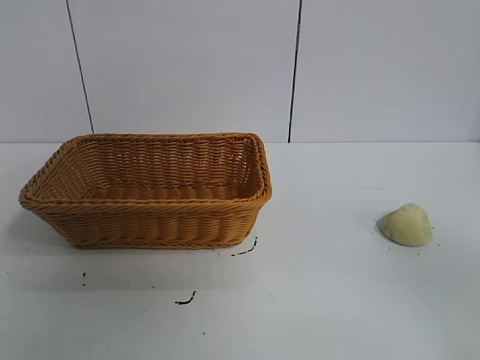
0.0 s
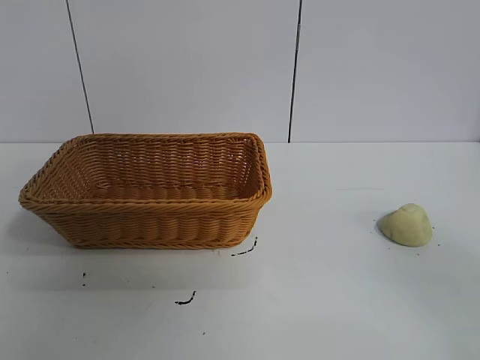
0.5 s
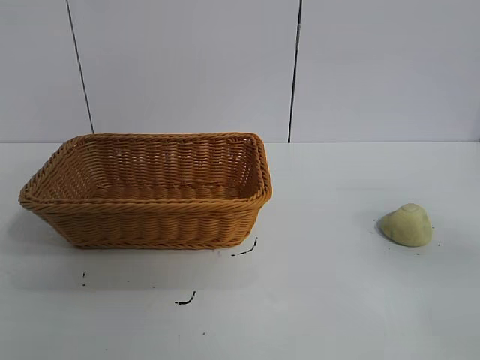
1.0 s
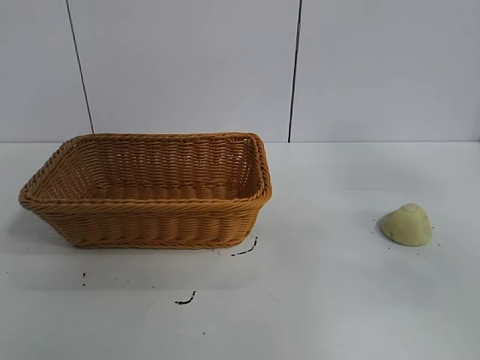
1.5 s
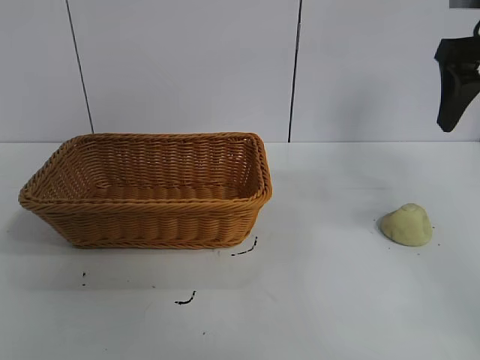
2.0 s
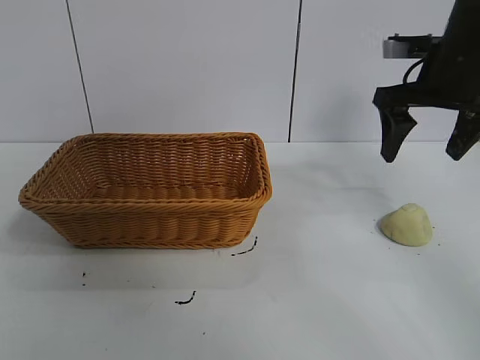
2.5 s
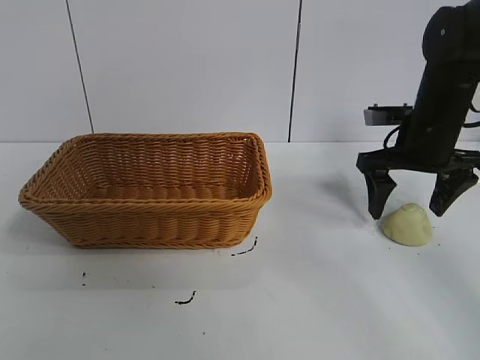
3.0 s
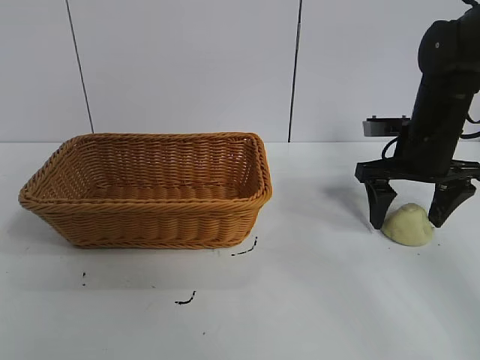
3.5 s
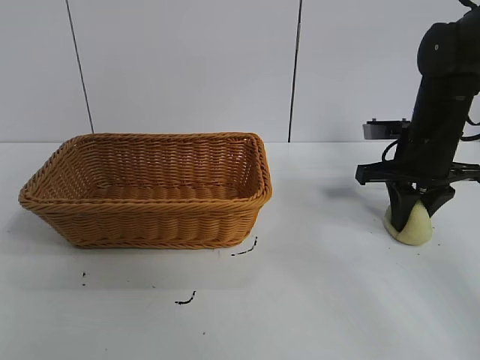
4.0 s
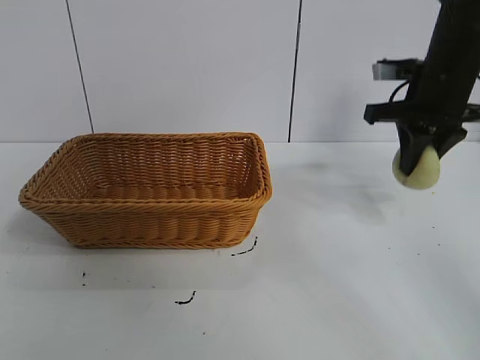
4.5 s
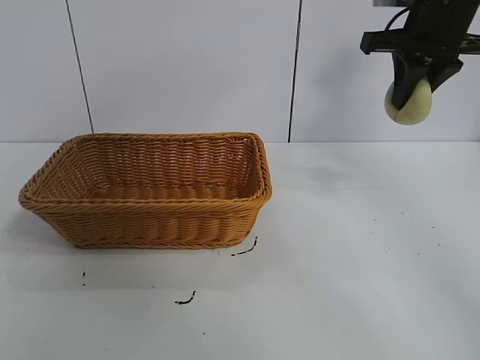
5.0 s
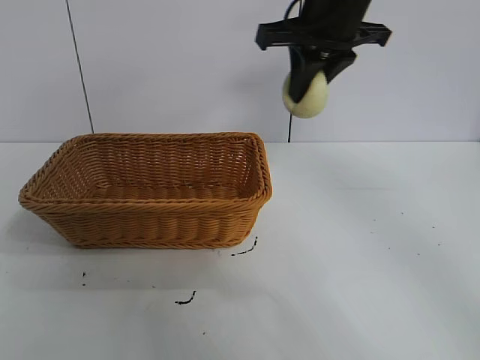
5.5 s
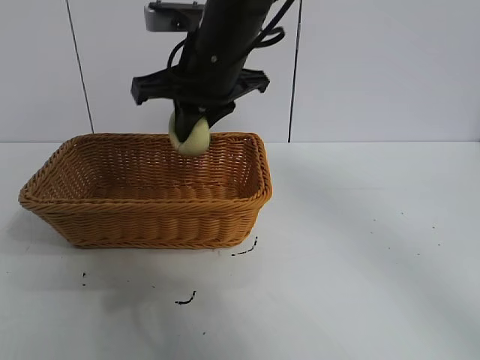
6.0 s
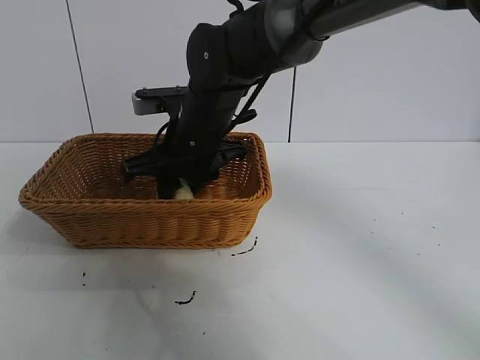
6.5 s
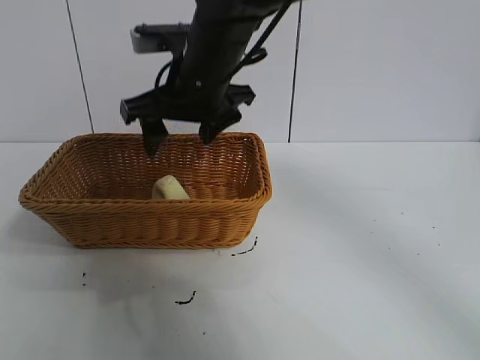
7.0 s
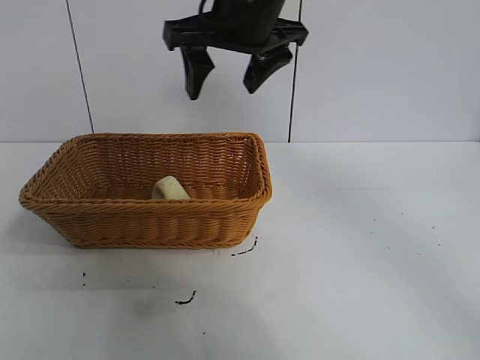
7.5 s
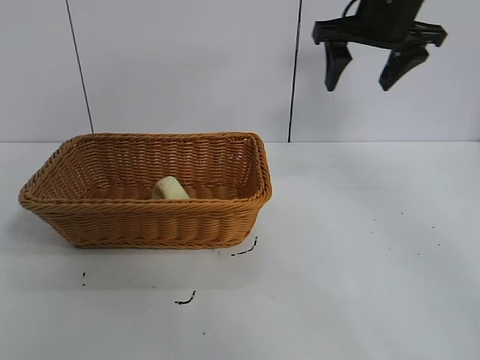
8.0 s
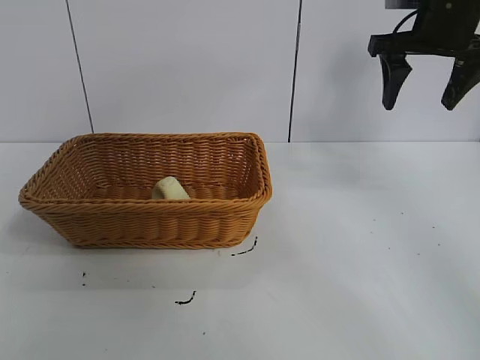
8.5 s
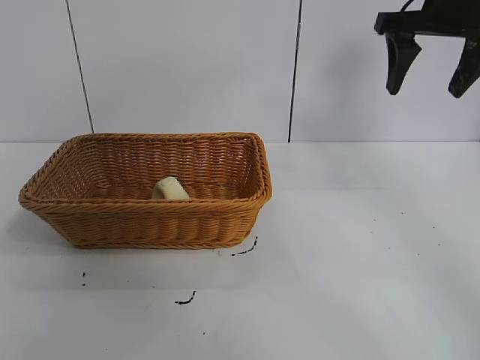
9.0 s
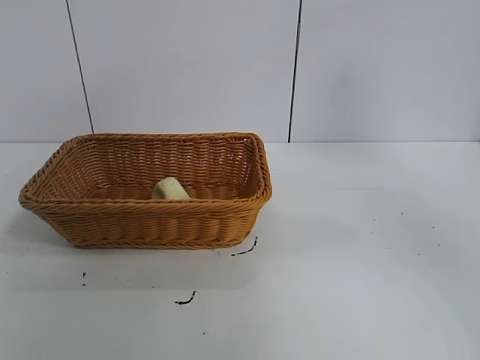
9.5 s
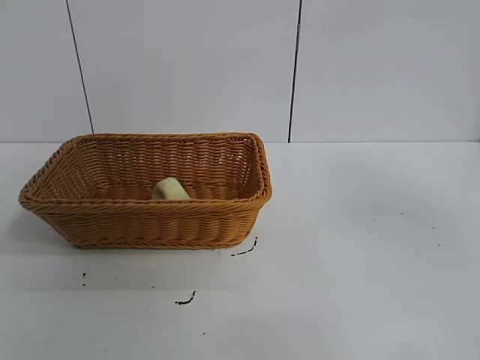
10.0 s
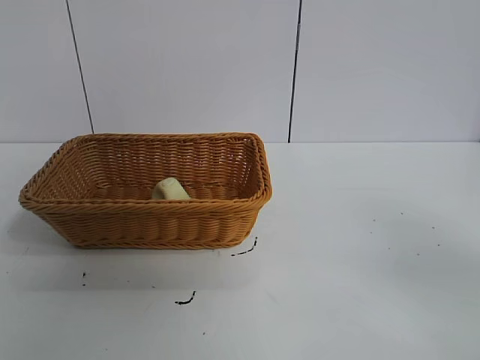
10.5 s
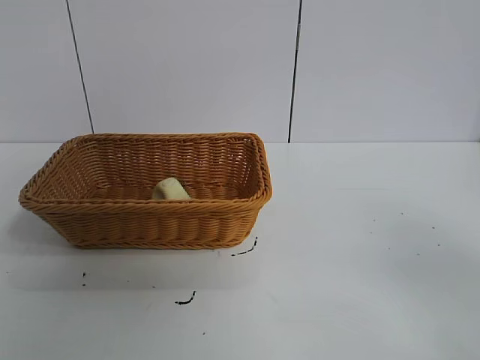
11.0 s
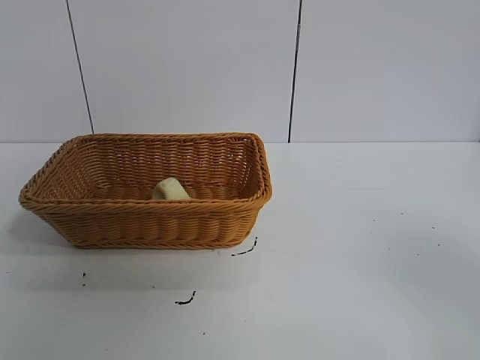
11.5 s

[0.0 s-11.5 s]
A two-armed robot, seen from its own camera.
Task of the whole recording: pick up the egg yolk pastry and put it into the basket.
Step, 1.0 to 4.0 s: Grasp egg yolk pastry with right gripper.
Step, 4.5 to 6.5 s: Place the egg yolk pastry in the basket with right gripper.

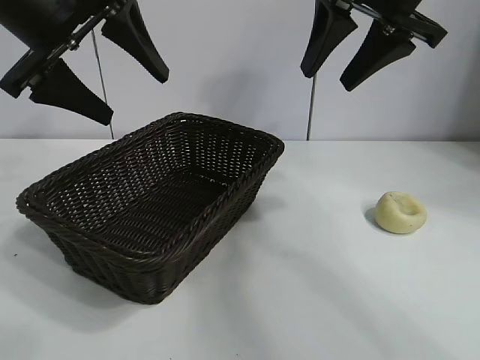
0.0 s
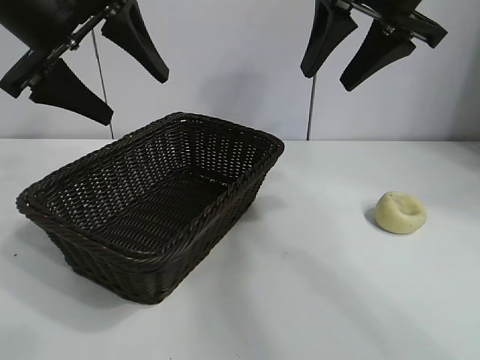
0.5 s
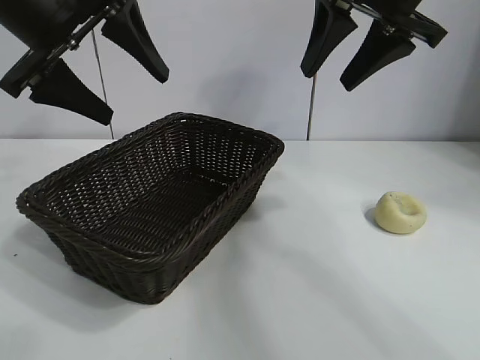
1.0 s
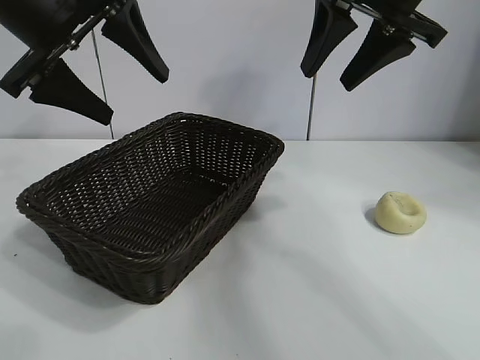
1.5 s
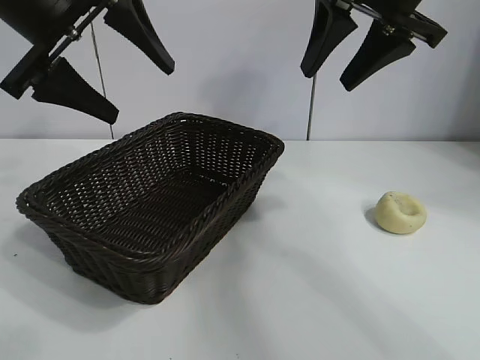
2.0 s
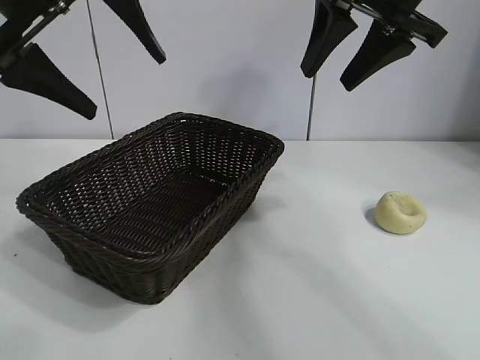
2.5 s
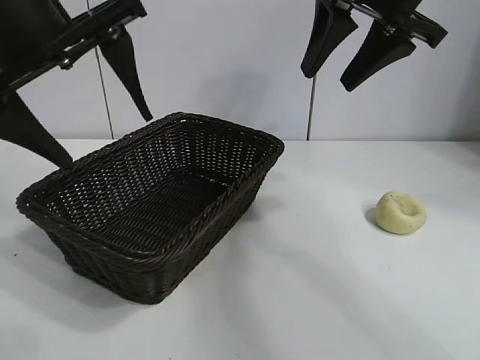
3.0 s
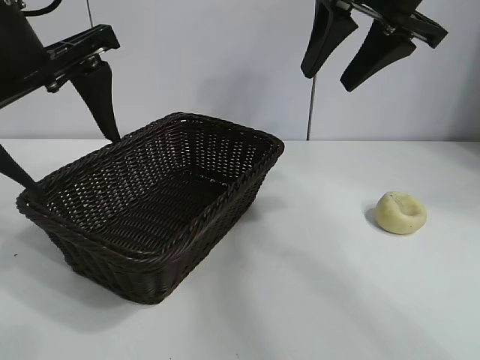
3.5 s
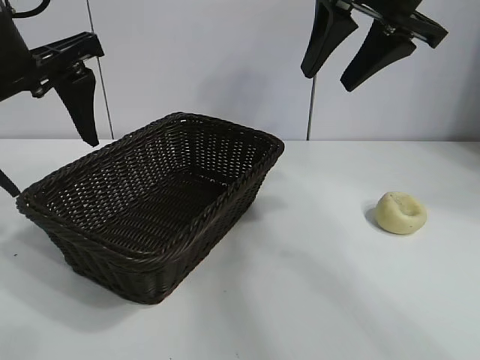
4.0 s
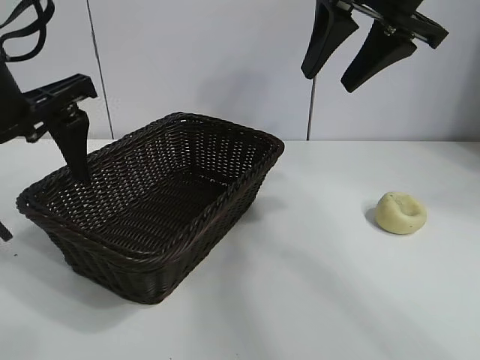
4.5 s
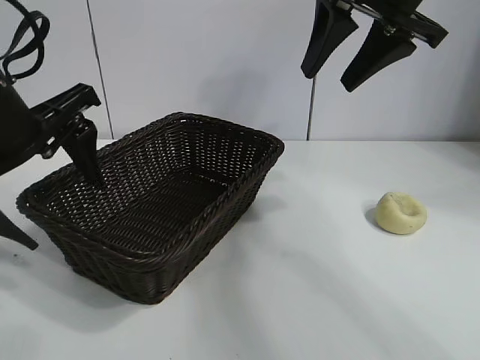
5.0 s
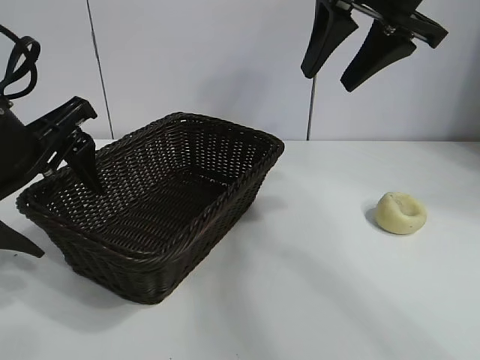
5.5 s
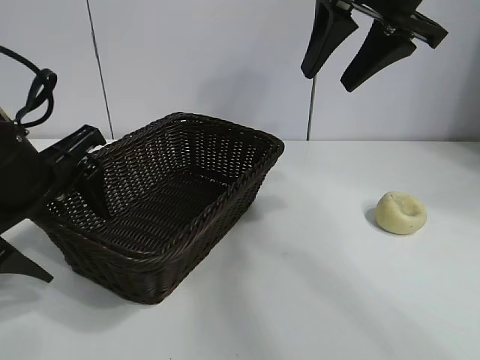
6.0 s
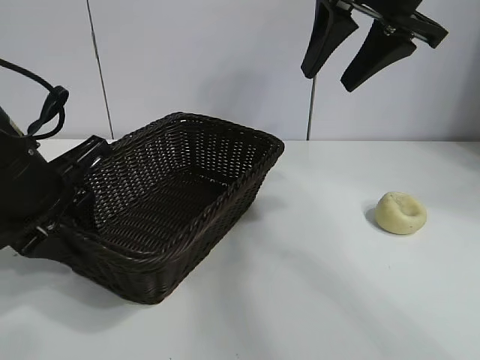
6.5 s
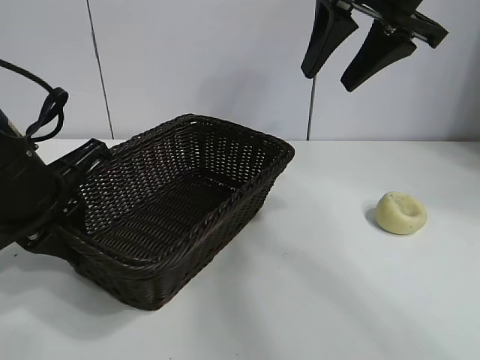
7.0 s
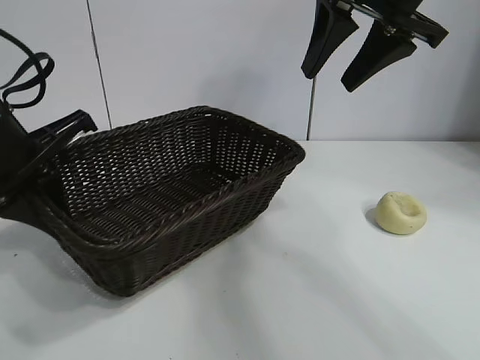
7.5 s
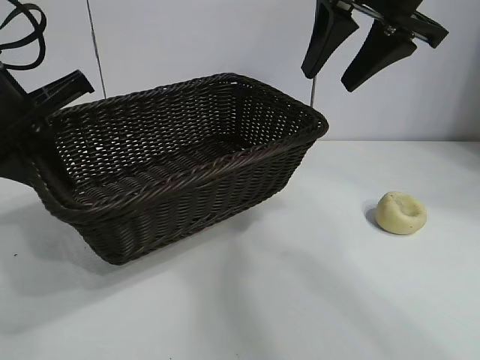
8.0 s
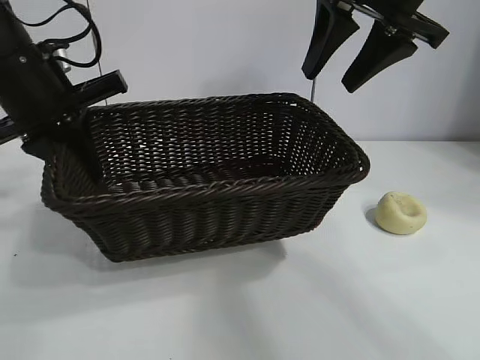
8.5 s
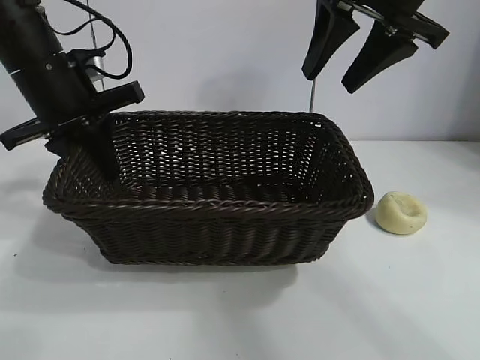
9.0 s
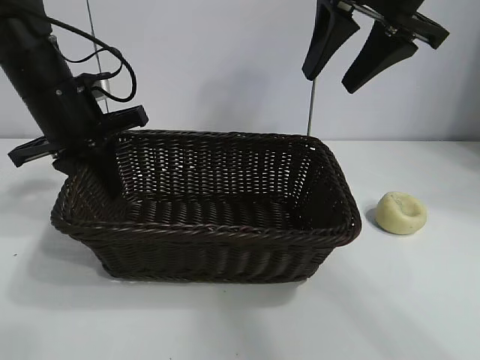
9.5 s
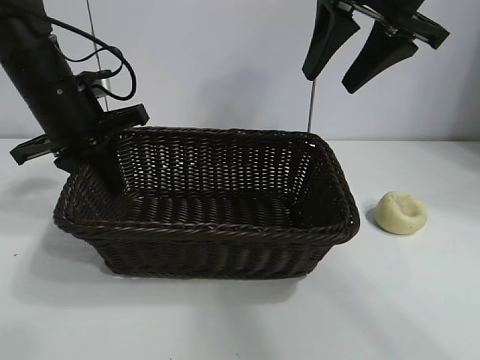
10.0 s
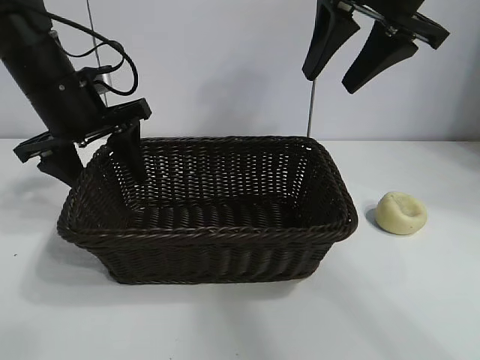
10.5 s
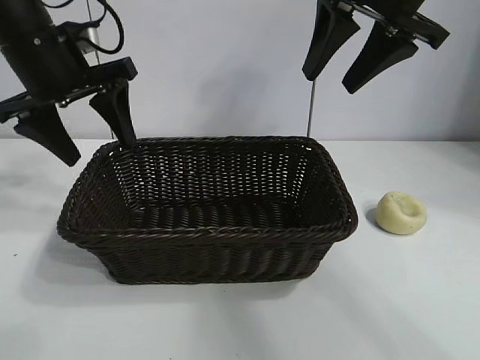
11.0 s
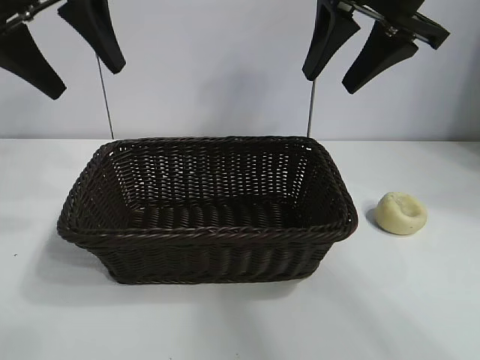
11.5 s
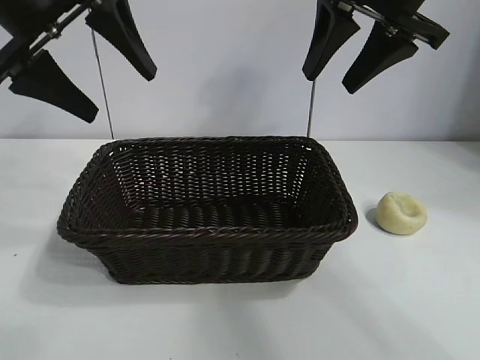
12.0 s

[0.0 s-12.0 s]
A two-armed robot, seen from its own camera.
Task of the whole recording: pick up the egg yolk pastry and put it into the basket.
Step, 2.0 to 6.5 s: Grasp the basket with left gripper.
Step, 7.0 to 10.0 s: Place the basket in the center of view with left gripper.

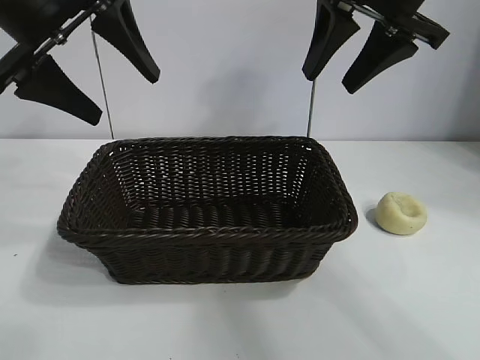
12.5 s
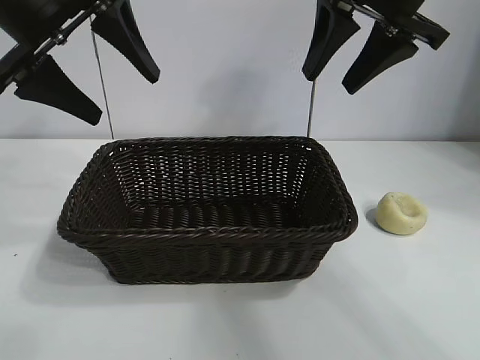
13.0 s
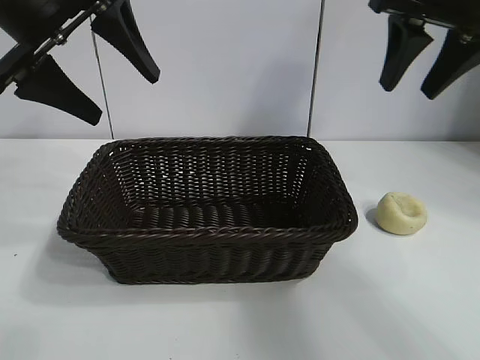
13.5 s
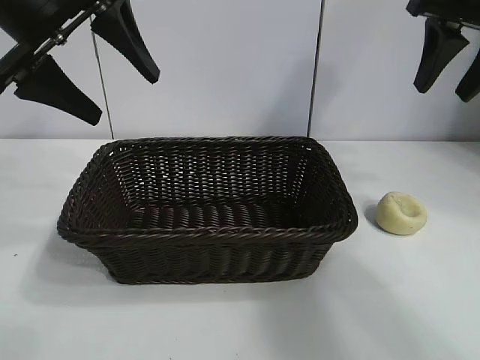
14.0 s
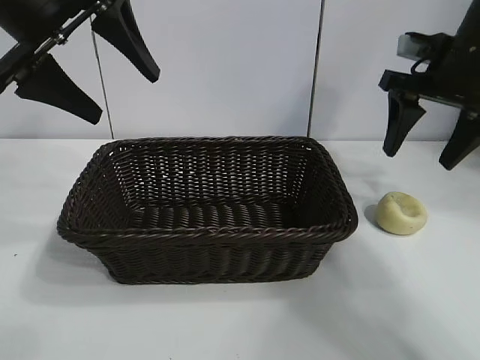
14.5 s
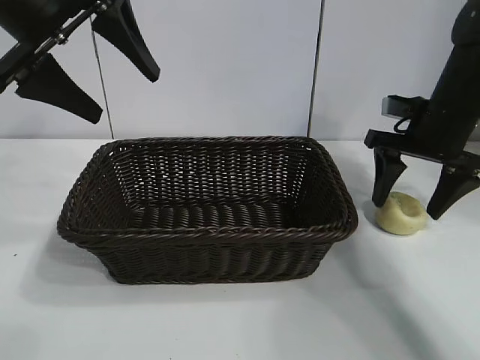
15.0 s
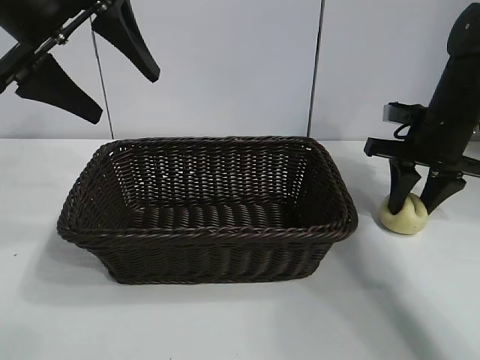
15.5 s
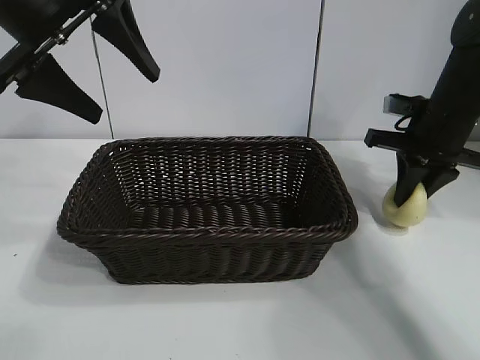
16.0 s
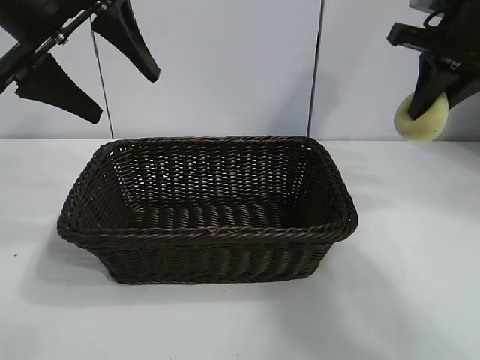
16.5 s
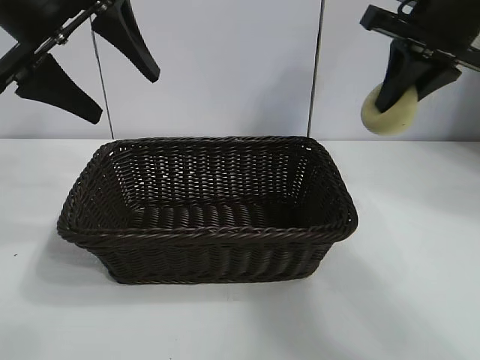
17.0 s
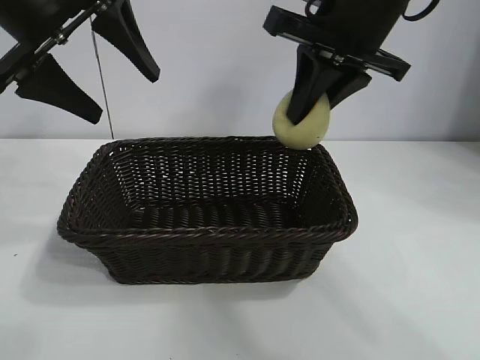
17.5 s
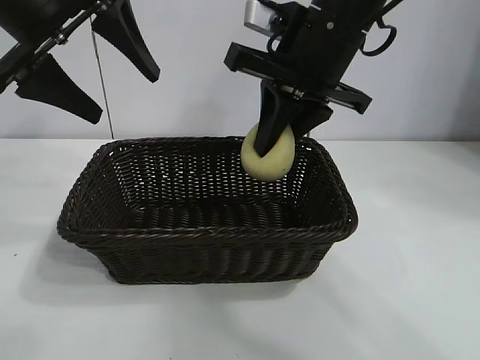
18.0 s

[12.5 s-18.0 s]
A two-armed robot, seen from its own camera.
Task of the whole recording: pick up the egg yolk pastry and put it into the basket.
Step, 12.5 to 15.5 s: Grasp egg yolk pastry with right gripper.
